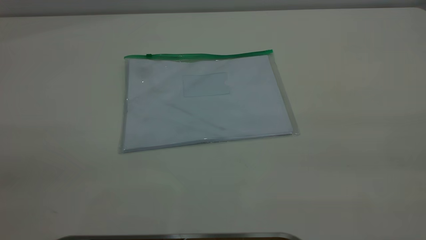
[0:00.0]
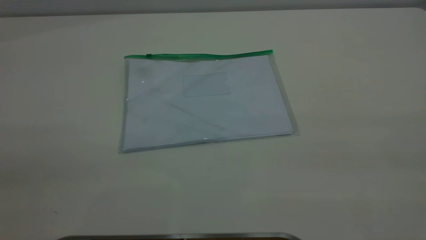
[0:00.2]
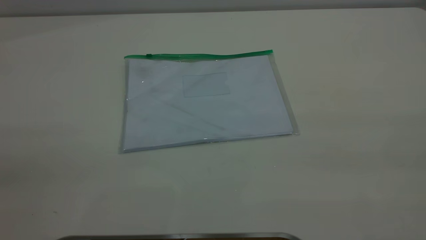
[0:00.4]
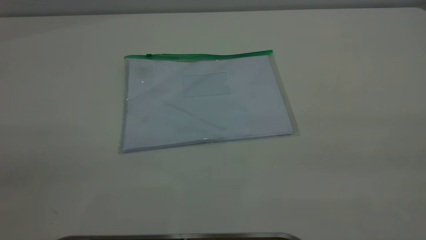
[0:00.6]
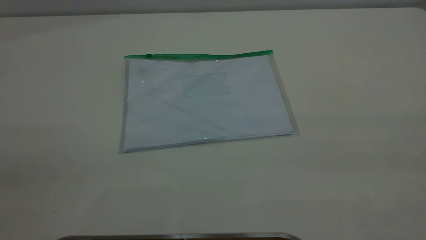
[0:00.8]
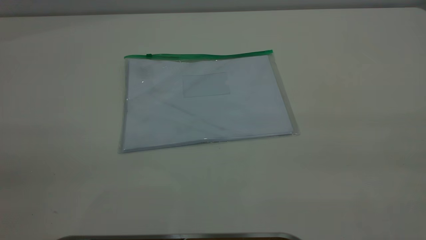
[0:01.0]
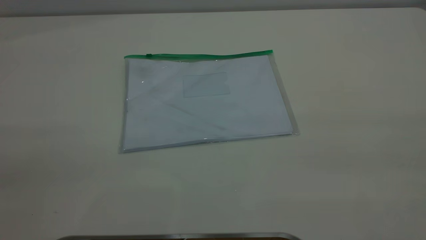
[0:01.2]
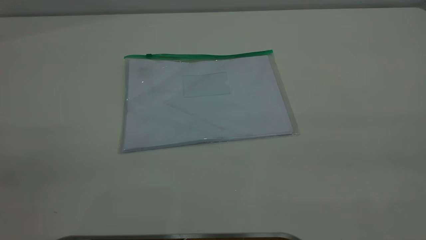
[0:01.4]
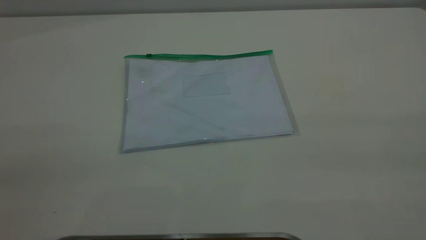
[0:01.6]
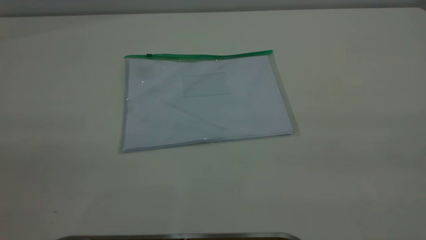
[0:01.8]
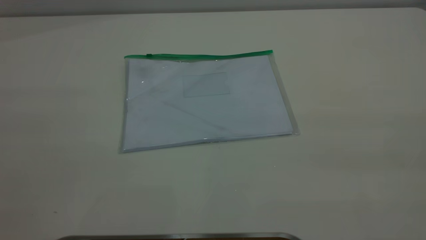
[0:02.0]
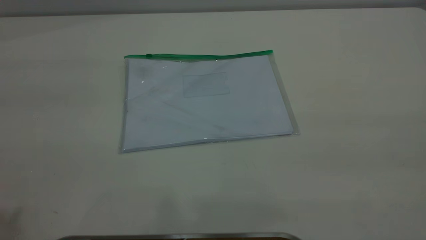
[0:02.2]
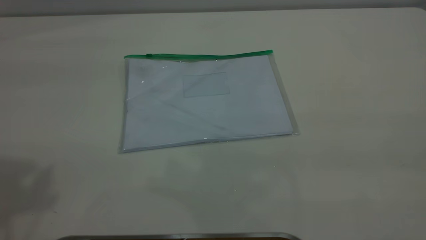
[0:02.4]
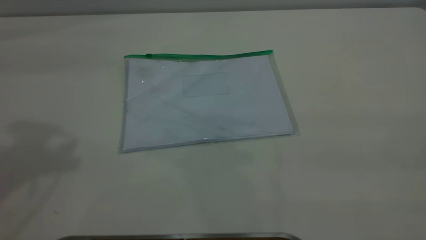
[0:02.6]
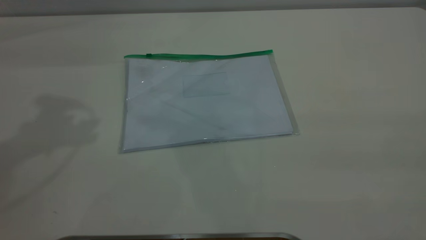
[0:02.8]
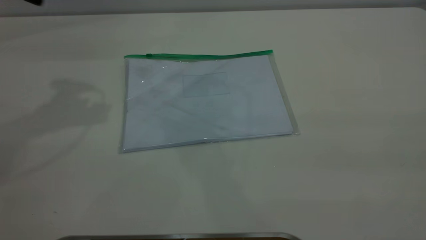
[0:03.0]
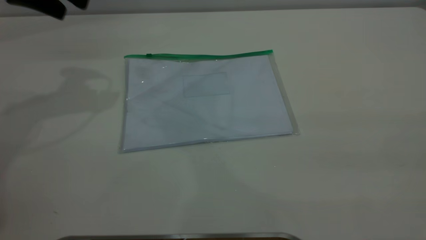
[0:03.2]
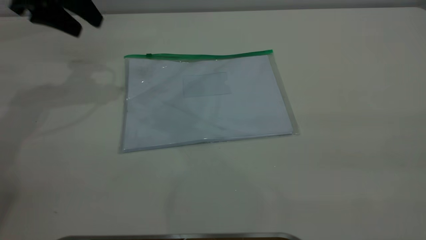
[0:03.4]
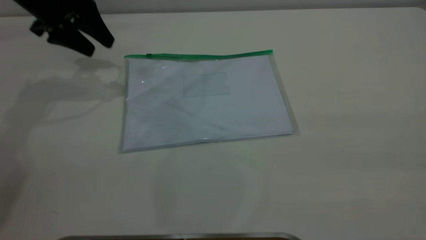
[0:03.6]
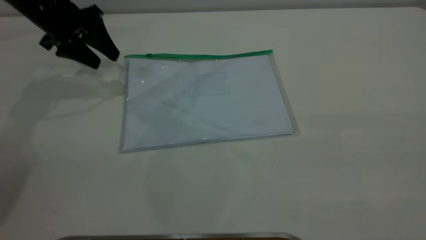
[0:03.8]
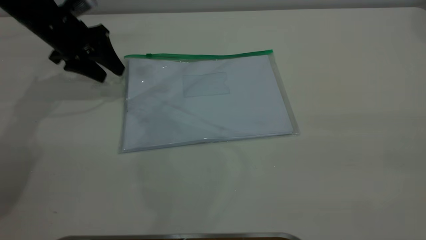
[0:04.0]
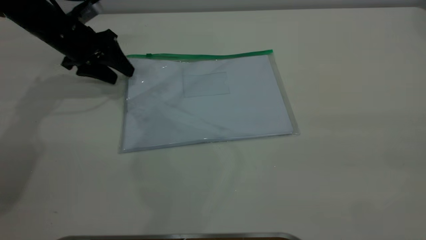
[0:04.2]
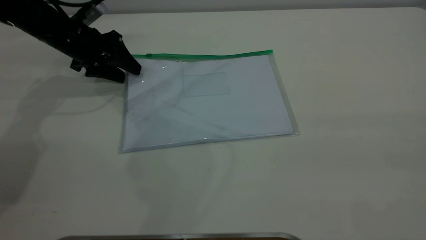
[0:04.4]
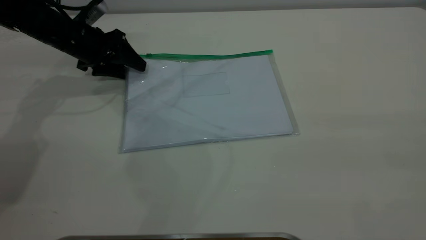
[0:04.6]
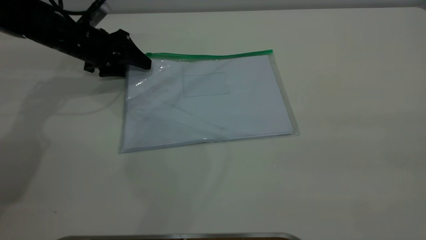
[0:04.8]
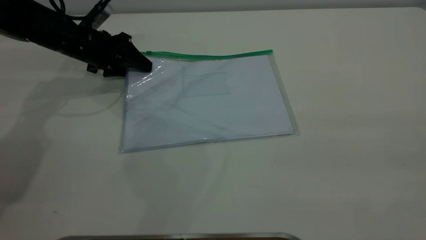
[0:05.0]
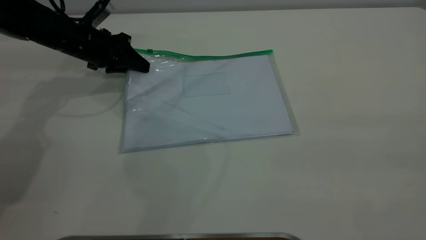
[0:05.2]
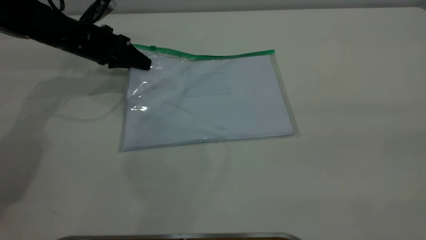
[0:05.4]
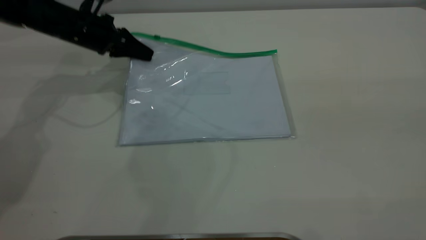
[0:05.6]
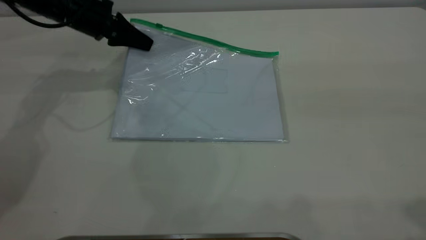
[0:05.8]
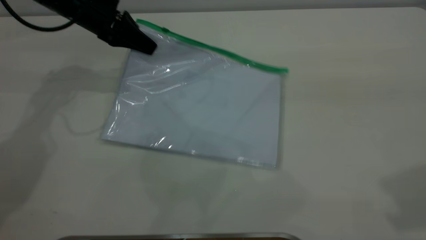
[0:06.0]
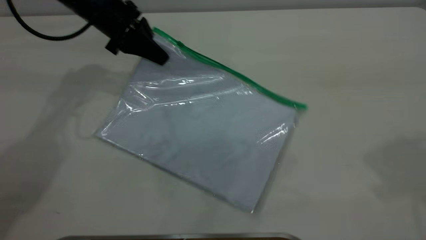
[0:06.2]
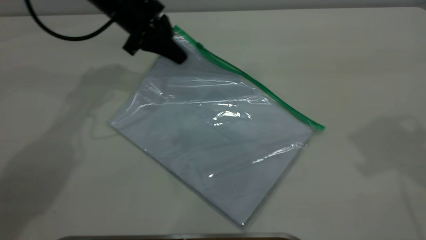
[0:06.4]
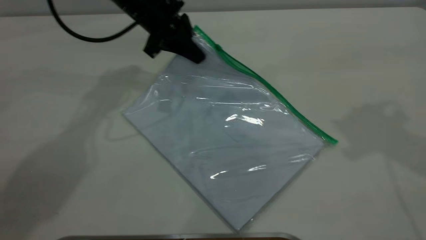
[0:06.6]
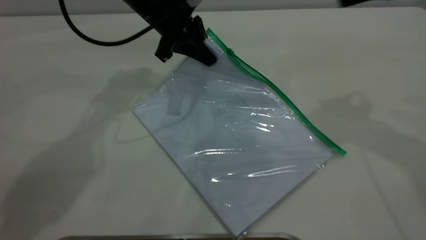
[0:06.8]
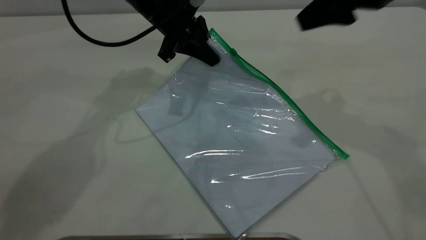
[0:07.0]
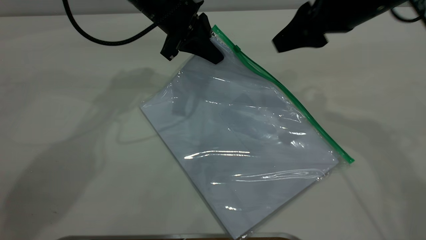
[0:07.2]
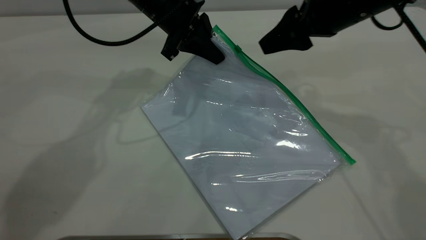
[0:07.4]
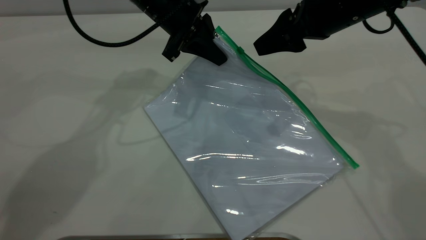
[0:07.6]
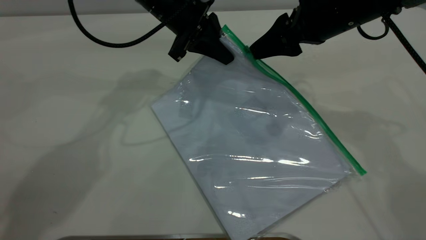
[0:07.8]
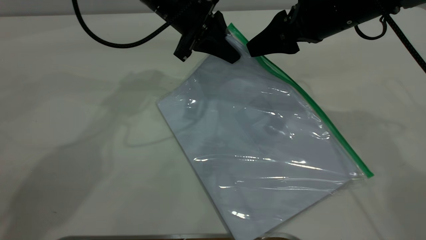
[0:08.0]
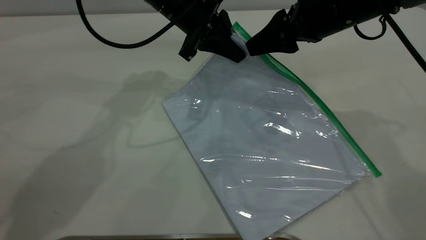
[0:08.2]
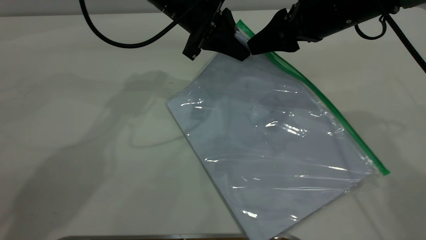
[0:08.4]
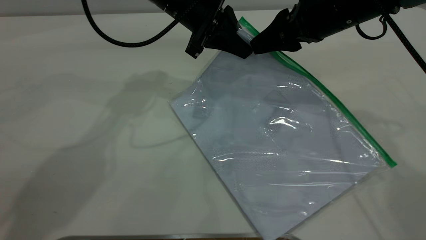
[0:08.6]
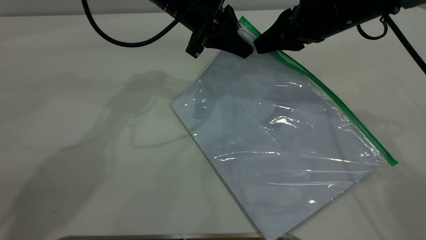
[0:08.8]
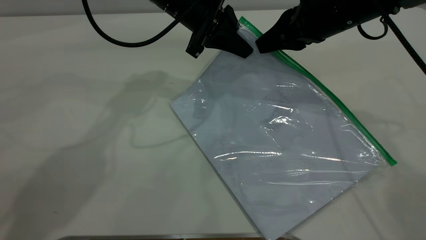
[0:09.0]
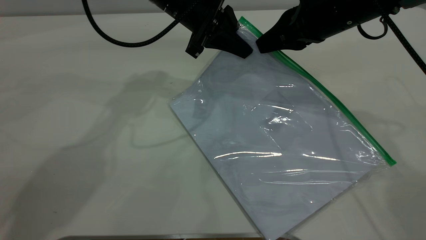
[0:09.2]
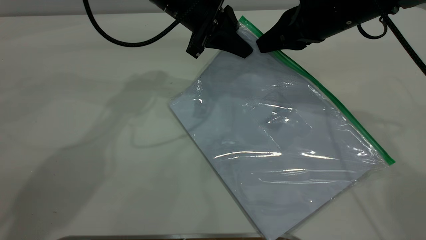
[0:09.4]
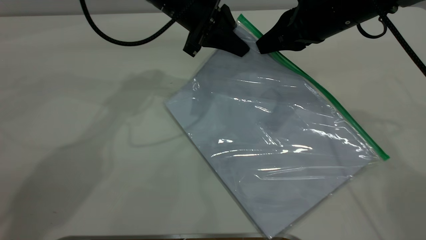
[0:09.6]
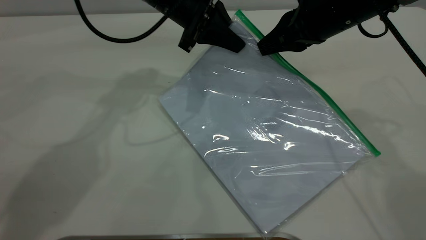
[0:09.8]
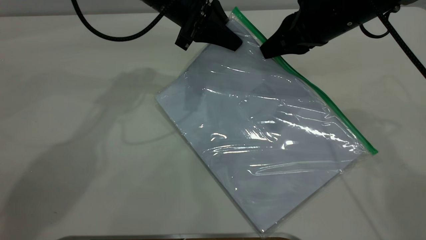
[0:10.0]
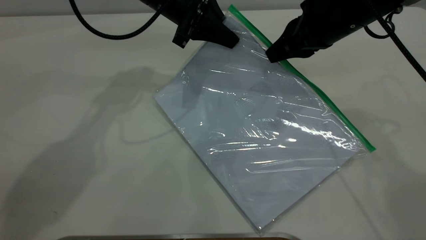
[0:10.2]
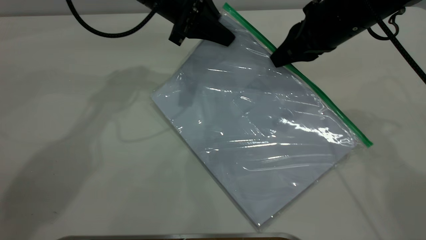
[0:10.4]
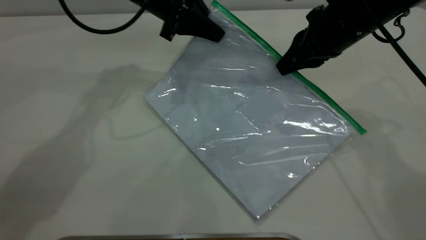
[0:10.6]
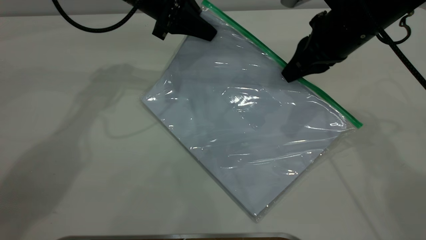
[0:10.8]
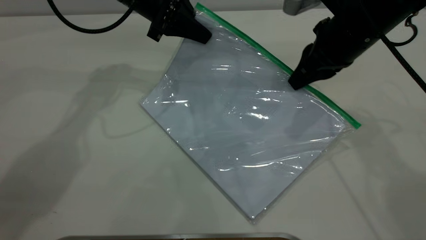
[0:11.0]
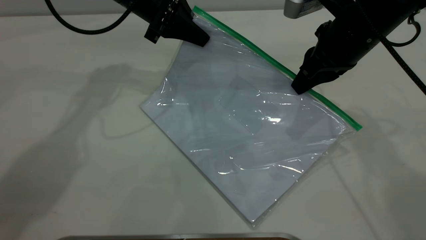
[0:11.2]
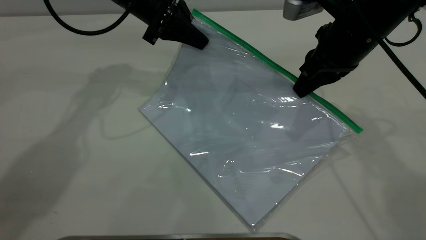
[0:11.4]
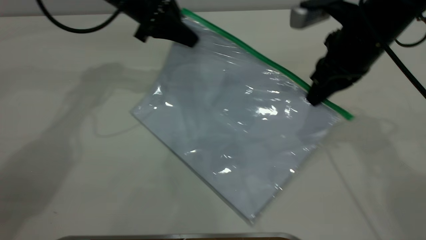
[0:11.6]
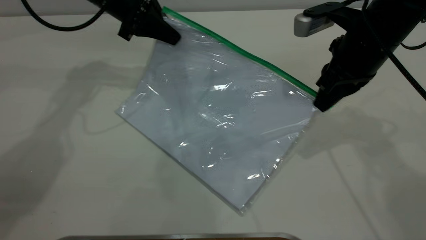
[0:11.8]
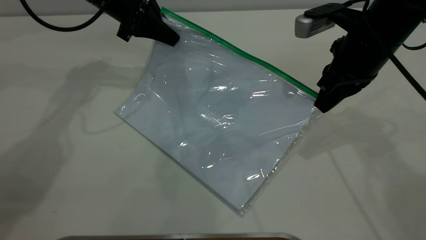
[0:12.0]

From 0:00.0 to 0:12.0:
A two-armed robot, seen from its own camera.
Step, from 0:00.0 to 0:05.4: Pick up the transparent plastic bag with the left gripper.
From 0:00.0 to 0:01.6: Both grippers stay put.
From 0:03.0 to 0:04.4: The left gripper shifts approximately 20 cm downward and forward.
From 0:04.4 to 0:06.0: The left gripper moves roughly 5 cm, and closes. The right gripper travels forward by about 20 cm.
From 0:06.0 to 0:07.6: The right gripper shifts roughly 30 cm forward, downward and to the left. Meanwhile the left gripper goes some 15 cm to the right.
From 0:07.6 to 0:09.0: The right gripper closes.
From 0:09.0 to 0:10.4: The grippers move only a little.
From 0:10.4 to 0:12.0: The left gripper is displaced to the left by some 10 cm.

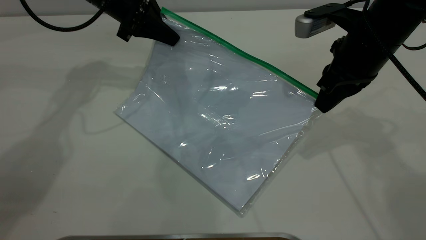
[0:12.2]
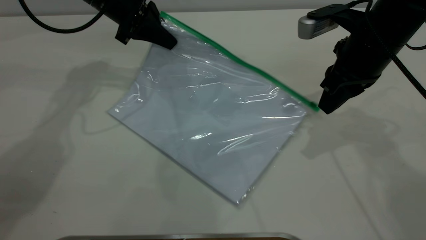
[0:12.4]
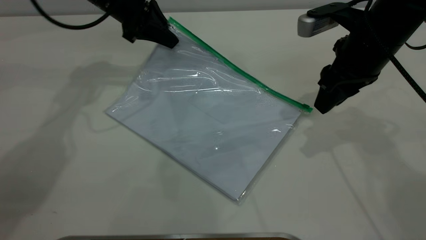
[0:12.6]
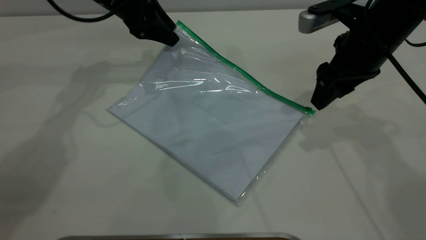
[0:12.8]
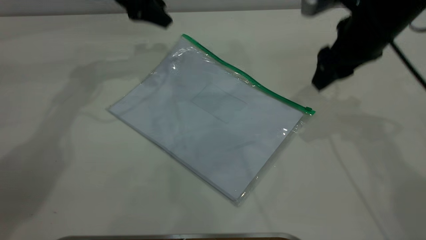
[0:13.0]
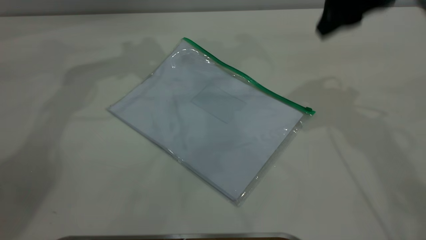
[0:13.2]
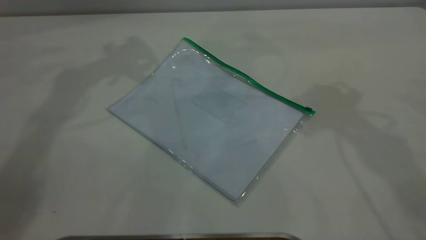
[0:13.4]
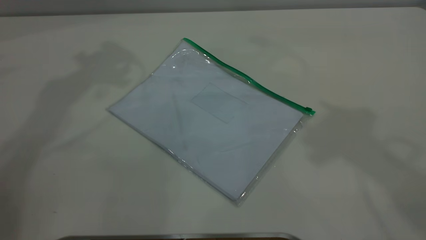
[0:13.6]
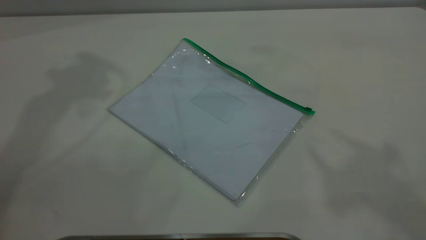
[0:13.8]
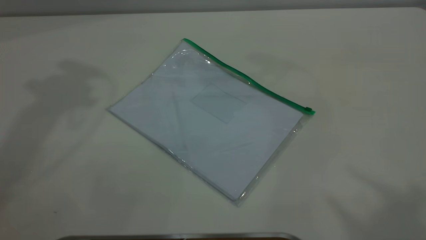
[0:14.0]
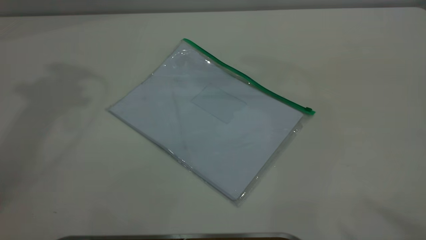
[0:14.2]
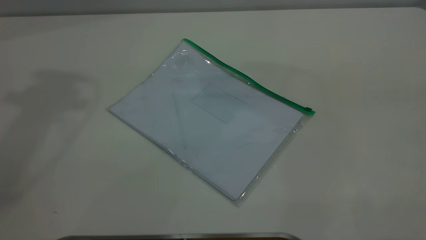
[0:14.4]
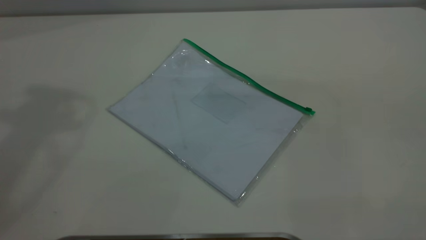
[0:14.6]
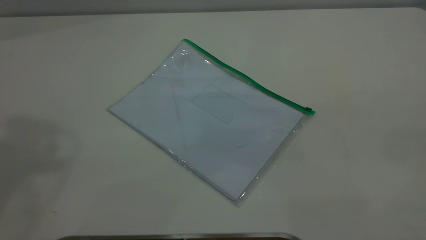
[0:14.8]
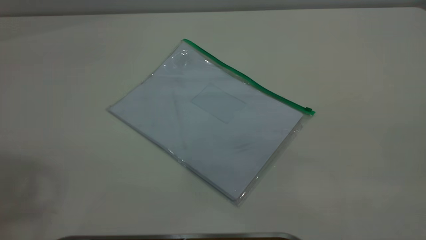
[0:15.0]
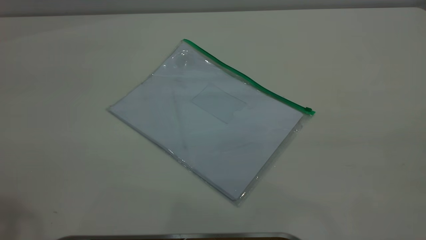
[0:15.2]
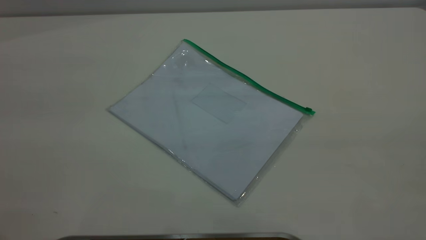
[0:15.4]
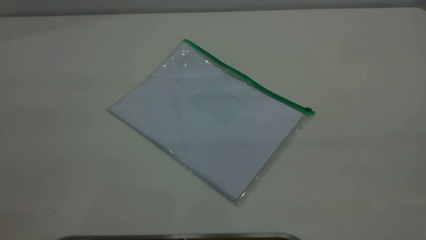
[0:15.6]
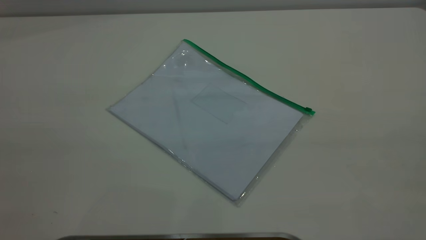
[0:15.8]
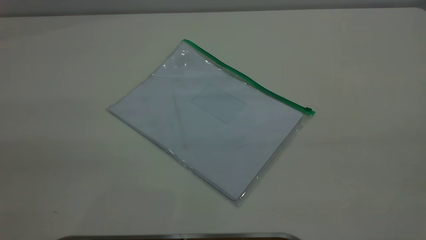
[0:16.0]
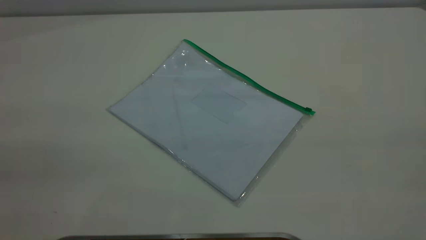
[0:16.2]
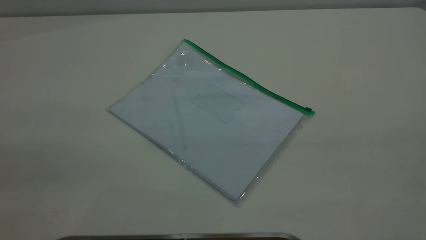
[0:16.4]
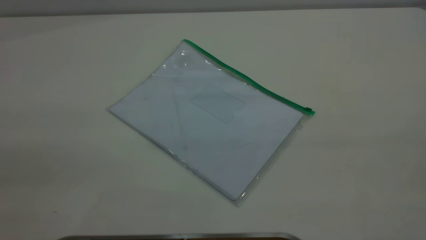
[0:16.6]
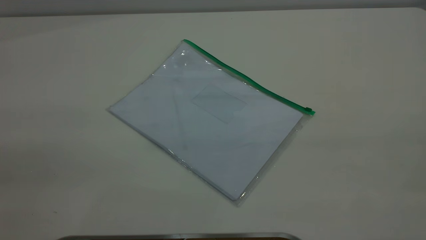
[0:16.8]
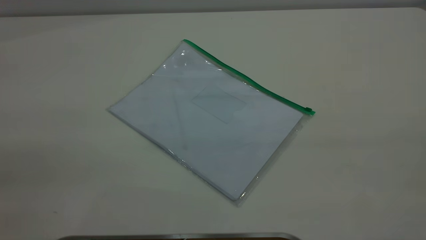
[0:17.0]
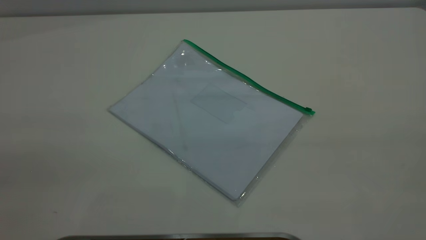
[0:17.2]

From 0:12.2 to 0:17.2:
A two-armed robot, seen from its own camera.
Step, from 0:12.6 to 0:13.0: Place the transparent plastic bag.
From 0:12.2 to 0:13.8: The left gripper shifts some 30 cm upward, and opens up; the right gripper travels upward and backward by approximately 40 cm, and opens up.
